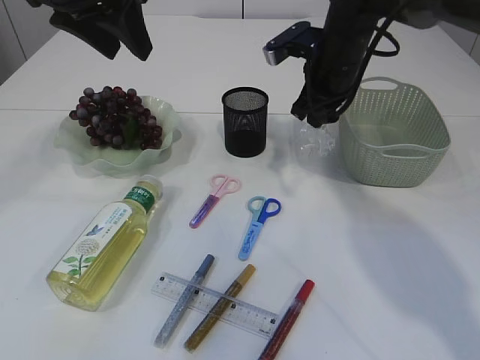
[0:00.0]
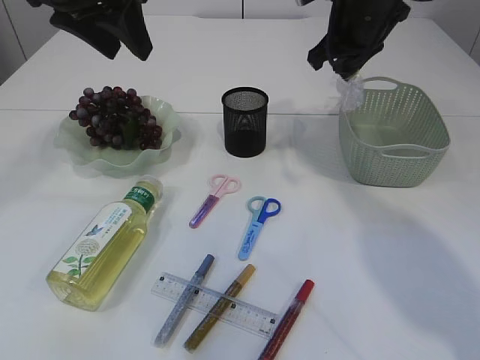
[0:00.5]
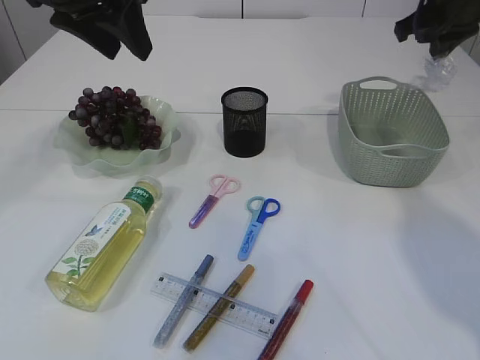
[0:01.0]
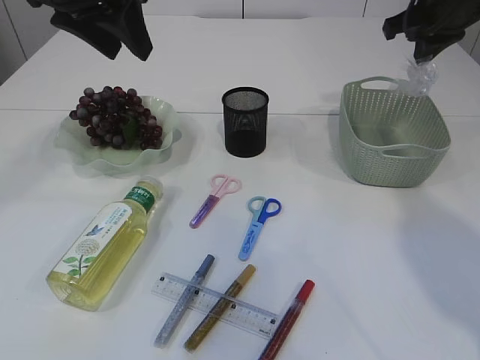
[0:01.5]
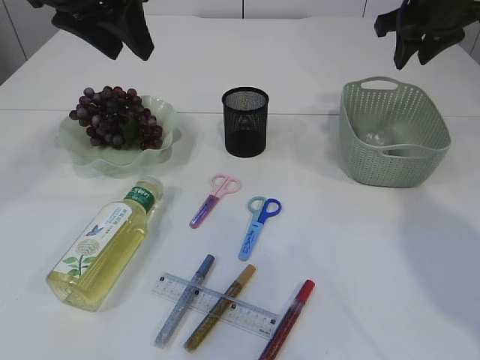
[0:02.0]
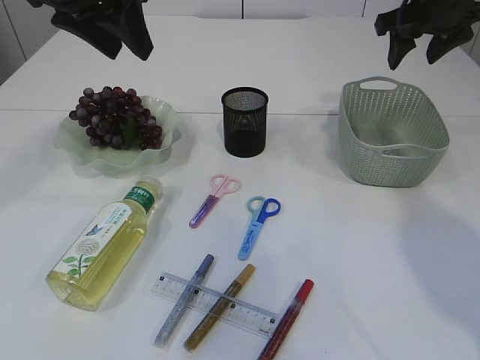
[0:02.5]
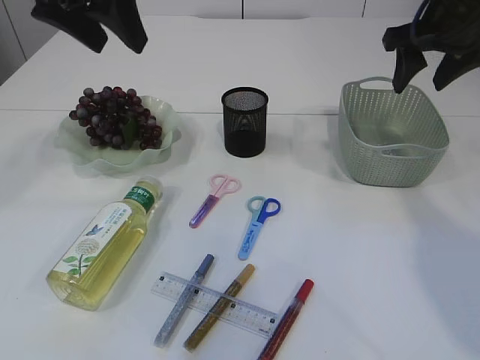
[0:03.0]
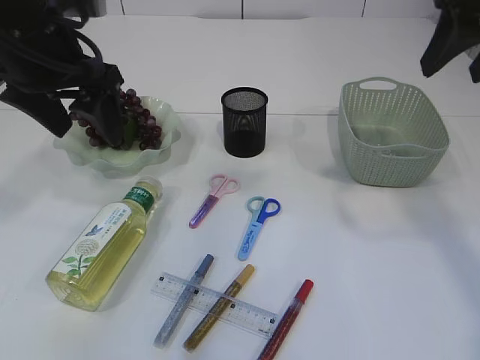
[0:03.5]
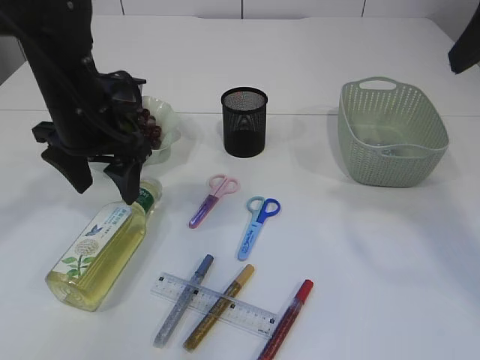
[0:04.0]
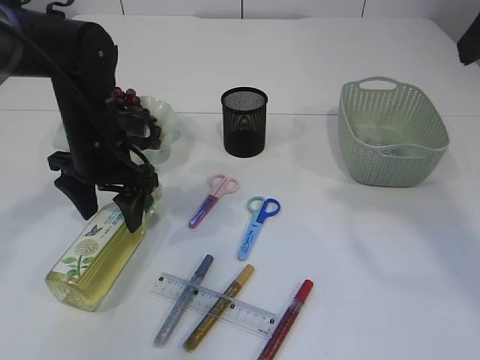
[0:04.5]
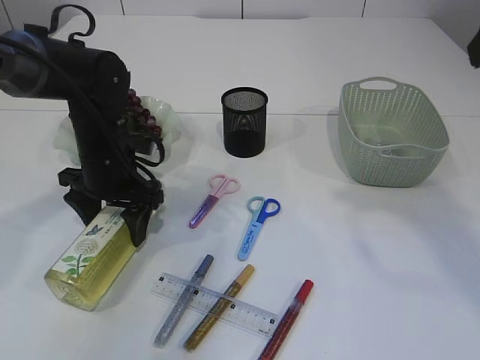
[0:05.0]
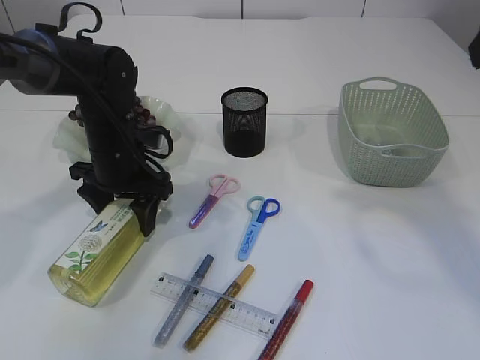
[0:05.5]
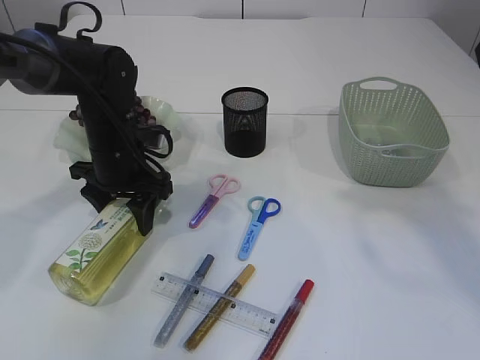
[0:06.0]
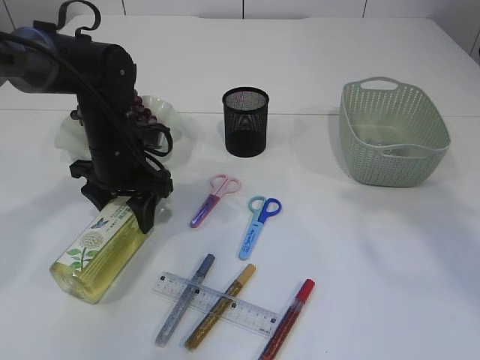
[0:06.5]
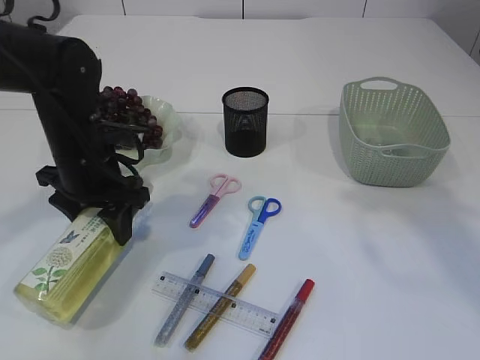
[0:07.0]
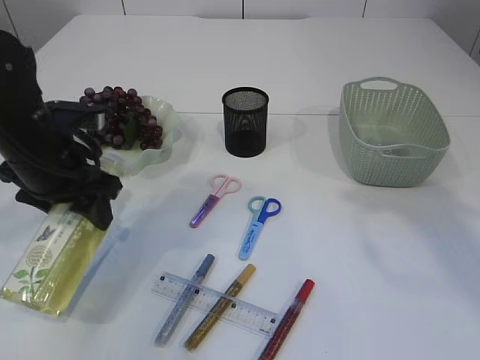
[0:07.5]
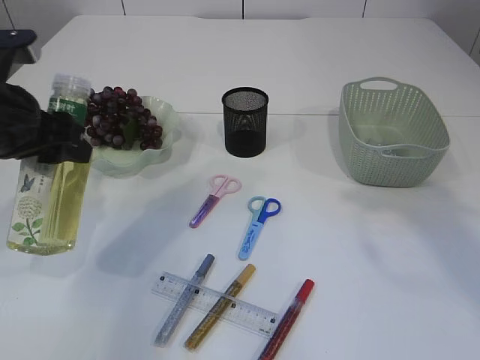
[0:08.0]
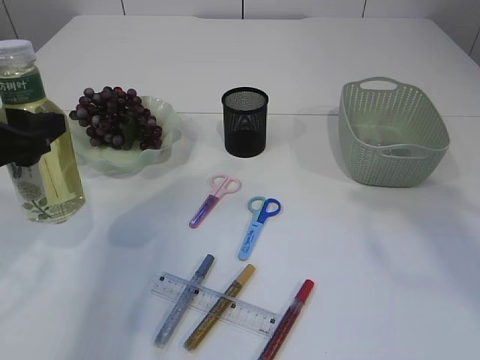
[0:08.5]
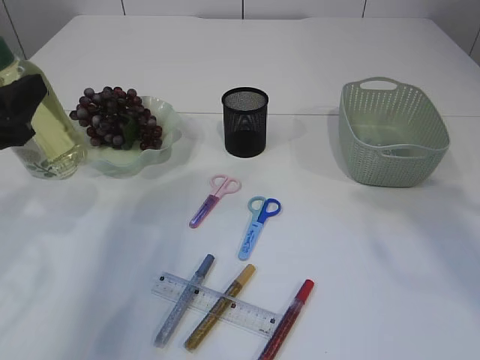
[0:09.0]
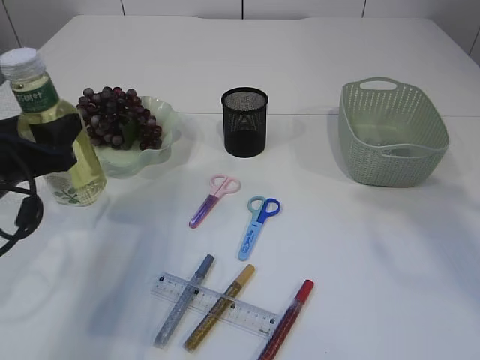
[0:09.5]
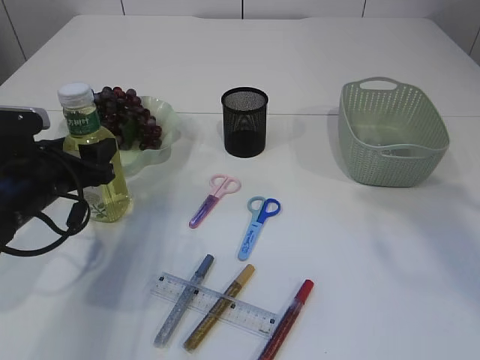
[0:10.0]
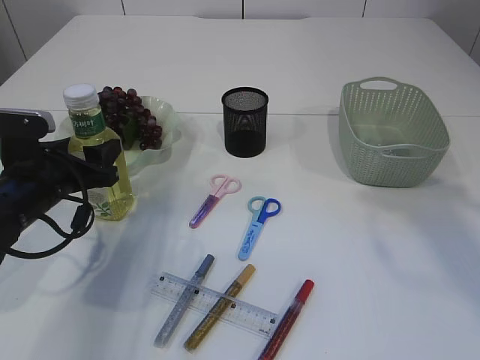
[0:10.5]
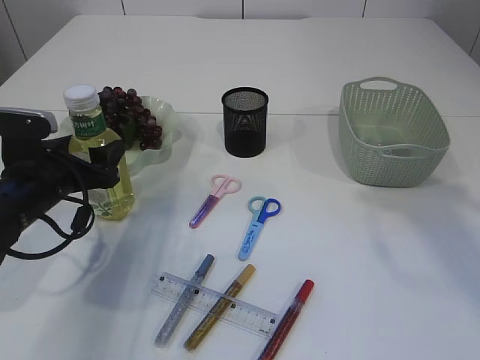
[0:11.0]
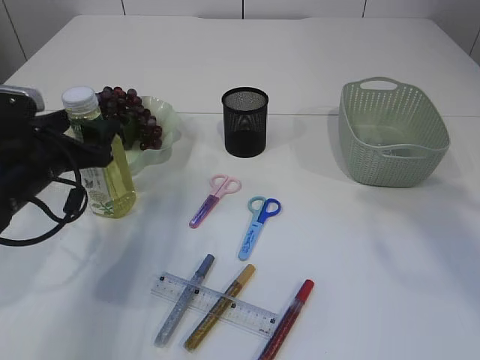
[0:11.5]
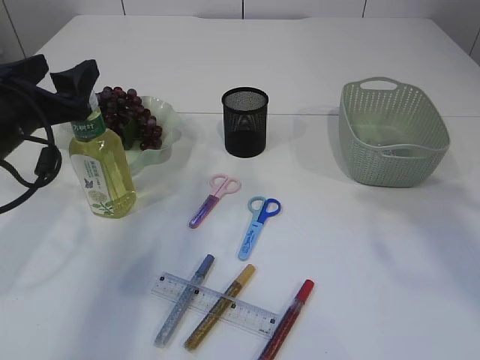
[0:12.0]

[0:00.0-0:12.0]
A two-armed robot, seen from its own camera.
Step, 0:00.5 to 0:02.0: Place the plastic in the basket.
Step, 0:02.5 to 0:07.5: Pick up the bottle with the left arm.
Step, 0:08.0 to 0:11.5: Place the bottle.
0:00.0 to 0:02.0: The right gripper heads to the right and upward, covering about 15 cm, and opens its fingers.
0:02.0 to 0:04.0: The right gripper shifts roughly 20 cm backward, and opens. The left gripper goes approximately 15 cm downward, and opens up.
0:04.0 to 0:06.0: The left gripper travels downward by approximately 10 cm.
0:06.0 to 0:08.0: The left gripper heads upward, backward and to the left, covering approximately 15 cm.
0:08.0 to 0:10.0: The left gripper heads downward, covering about 10 cm.
0:10.0 to 0:12.0: The left gripper heads upward, covering some 10 cm.

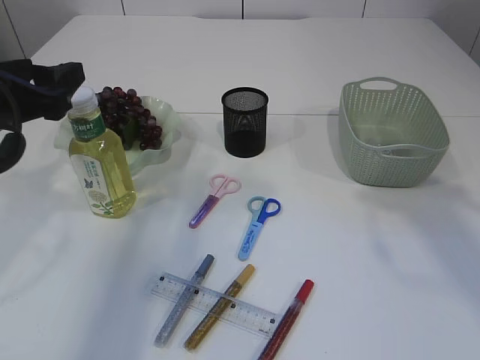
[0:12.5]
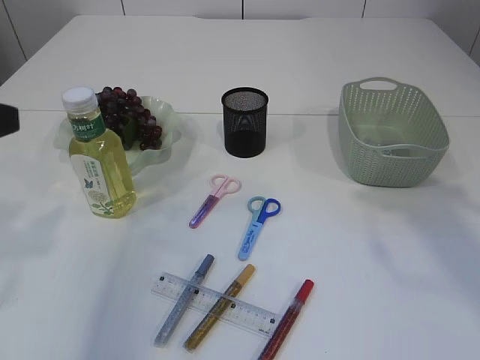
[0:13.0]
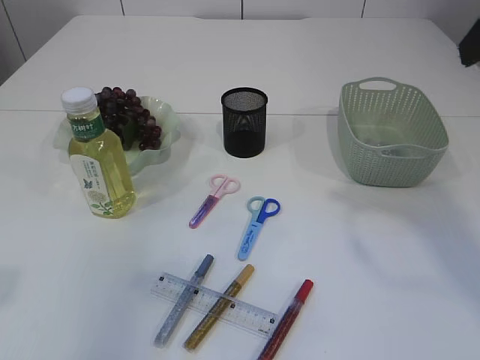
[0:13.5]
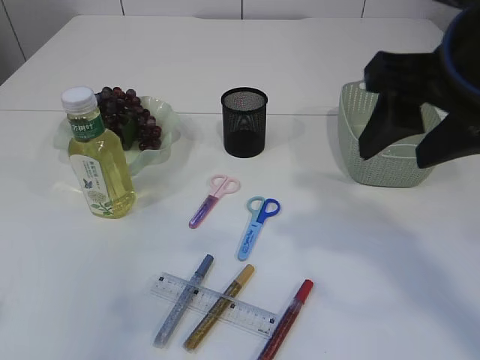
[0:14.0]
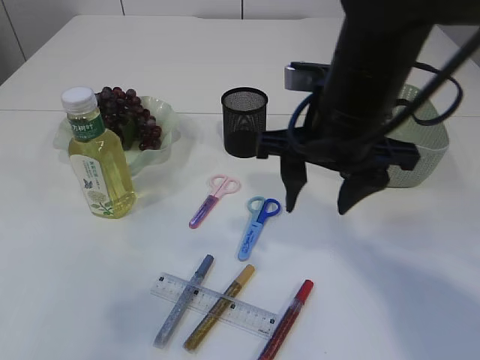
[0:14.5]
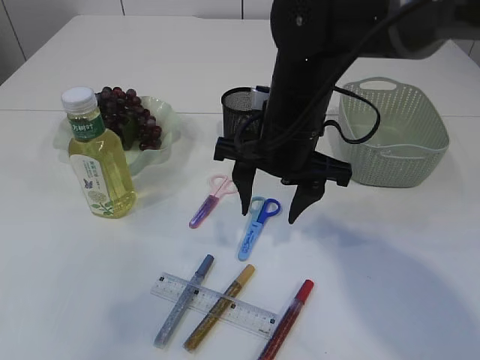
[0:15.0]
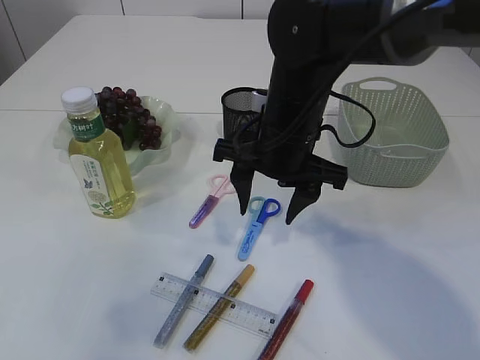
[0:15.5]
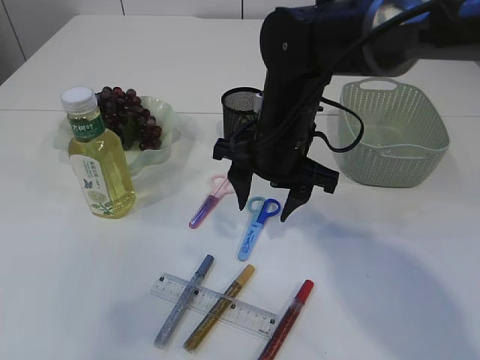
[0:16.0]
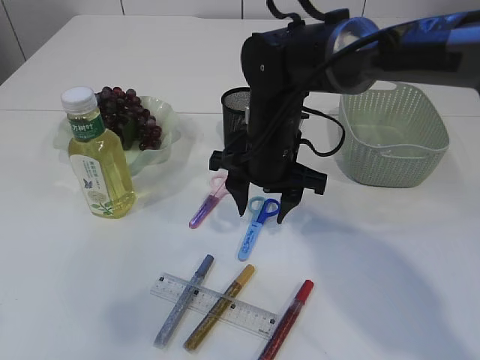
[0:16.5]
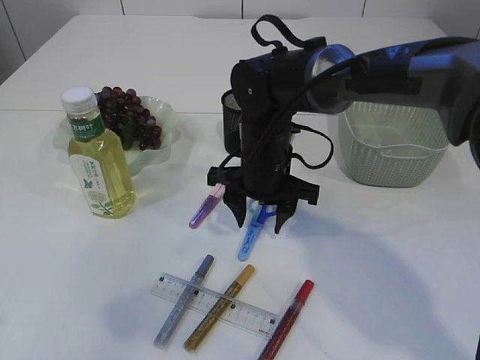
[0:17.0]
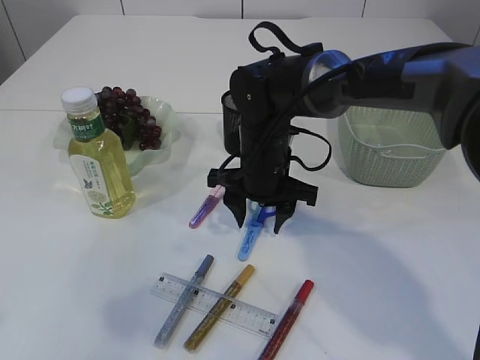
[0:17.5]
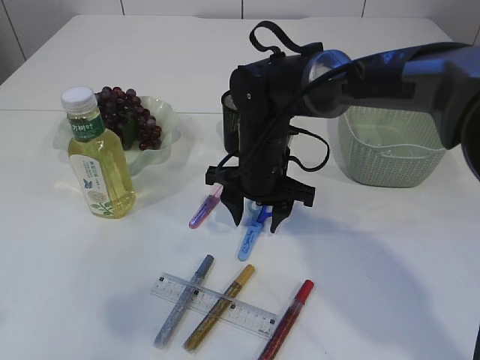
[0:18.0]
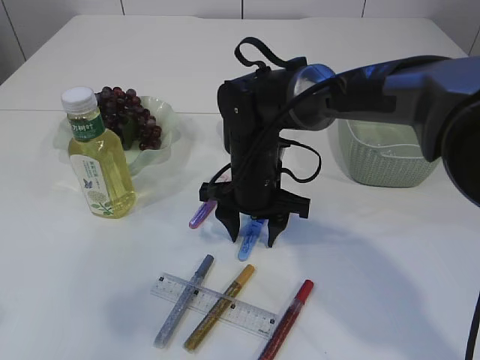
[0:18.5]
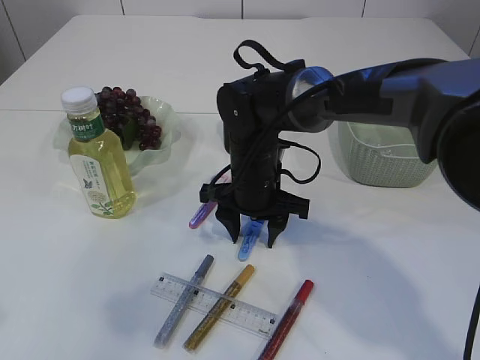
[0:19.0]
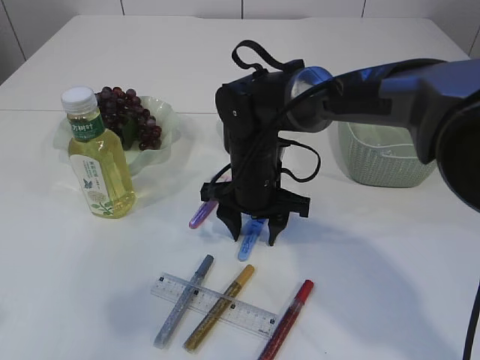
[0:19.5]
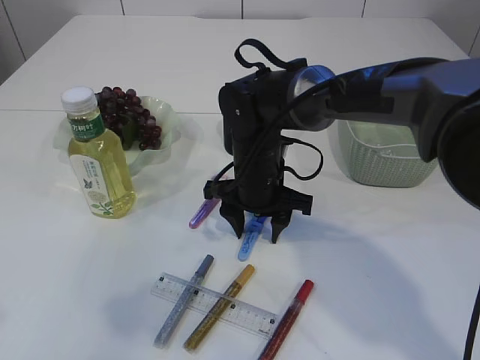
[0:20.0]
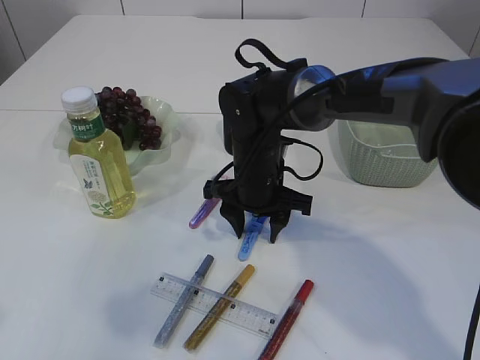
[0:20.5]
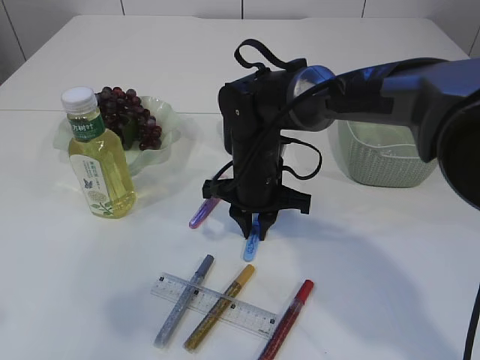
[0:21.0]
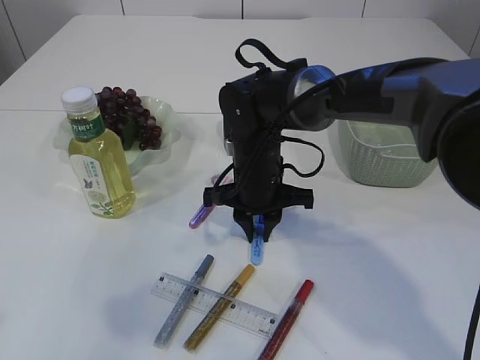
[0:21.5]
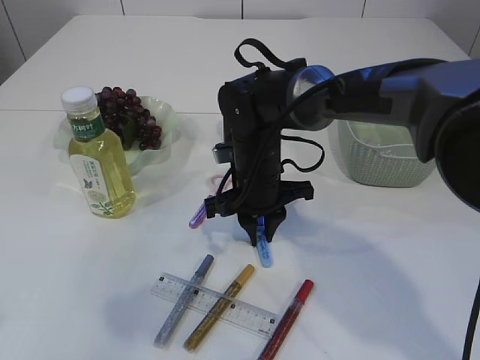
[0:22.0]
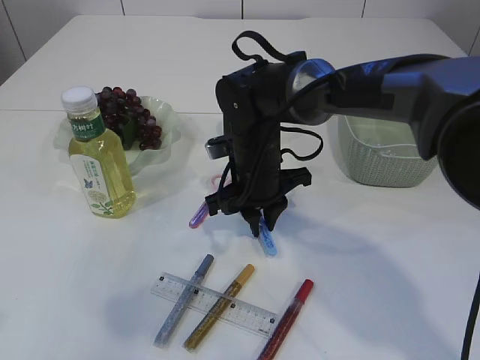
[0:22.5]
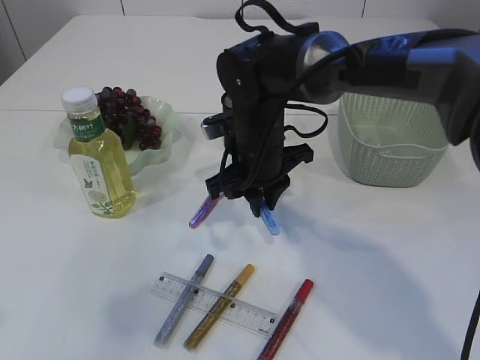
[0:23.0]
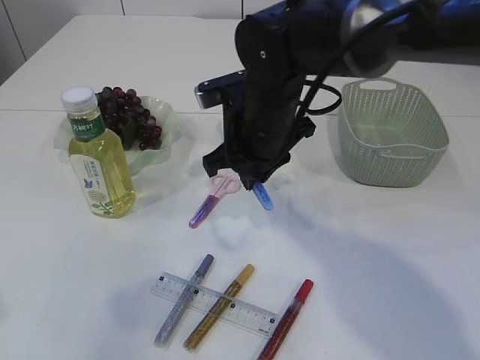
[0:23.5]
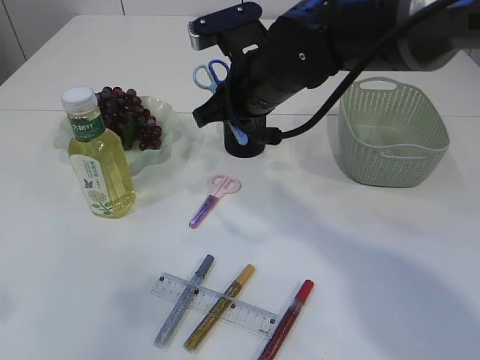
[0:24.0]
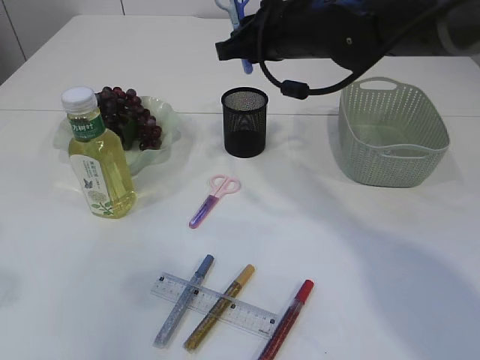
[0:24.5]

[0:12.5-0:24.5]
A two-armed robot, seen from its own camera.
Step, 0:12.5 to 0:23.5: pick up the blue scissors.
0:12.5 to 0:14.5: The left gripper heads backward and upward, covering some 20 cm. The right gripper goes some 20 cm to the left and downward.
0:14.5 to 0:16.5: The right gripper heads downward, forward and to the left, covering some 15 cm.
0:16.5 to 0:18.5: The right gripper ends up some 5 cm from where it was.
0:18.5 to 0:20.5: Both grippers stay put.
0:20.5 to 0:22.5: The right gripper closes its fingers.
0:22.5 to 0:24.5: The right gripper travels upward by roughly 15 cm.

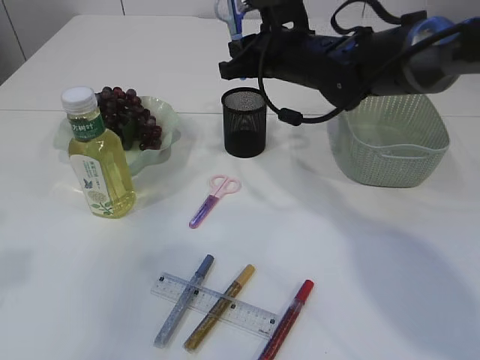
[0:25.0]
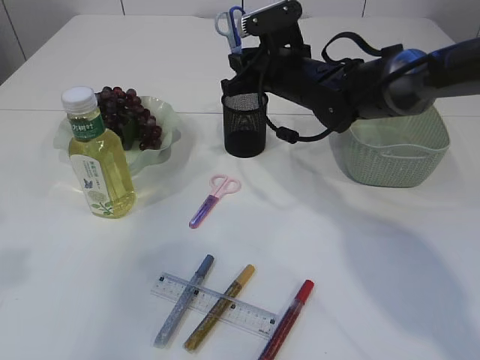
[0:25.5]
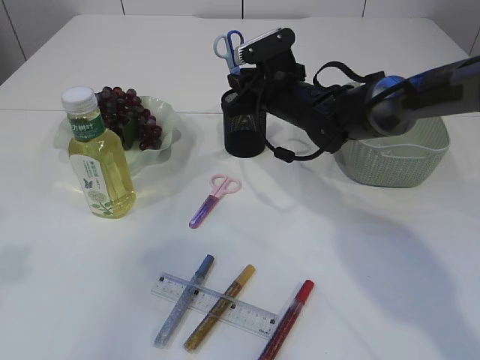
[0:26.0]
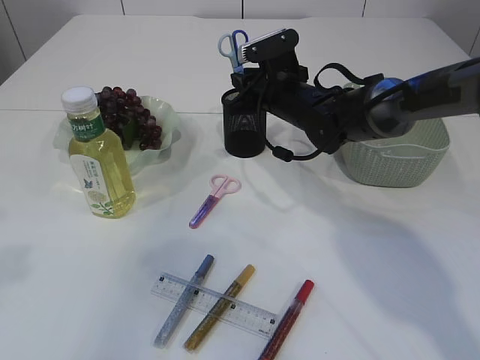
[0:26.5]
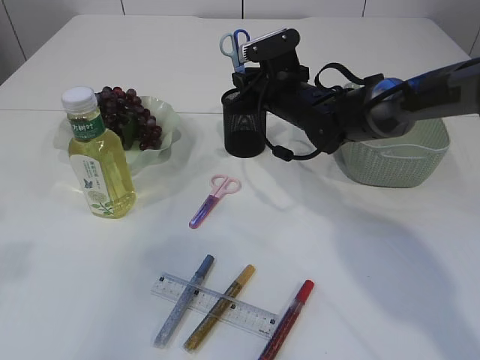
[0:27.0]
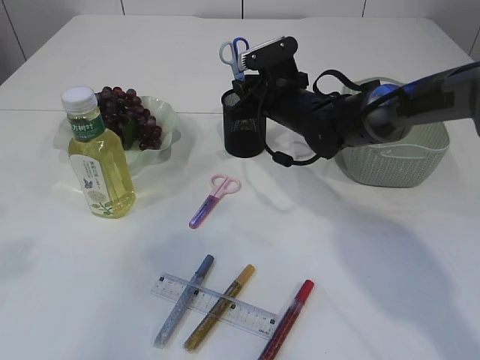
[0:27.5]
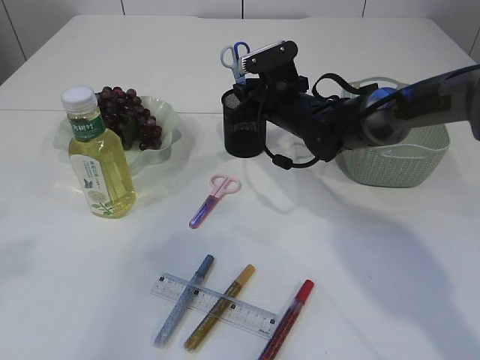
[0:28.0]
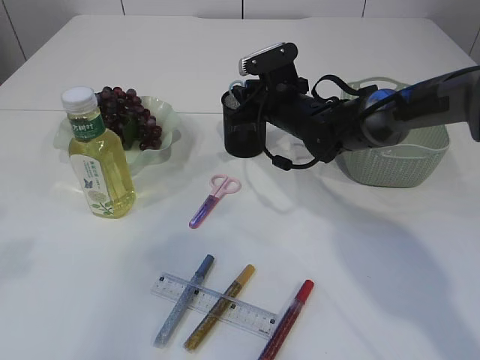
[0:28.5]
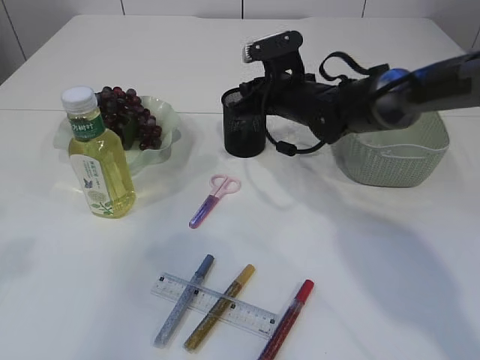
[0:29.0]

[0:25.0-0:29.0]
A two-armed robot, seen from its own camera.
0:25.0 to 0:27.0: The right gripper shifts roughly 10 cm downward.
0:27.0 to 0:29.0: The grippers stay close to where they were, moving slightly.
